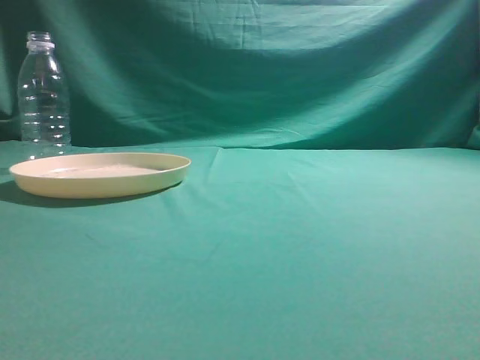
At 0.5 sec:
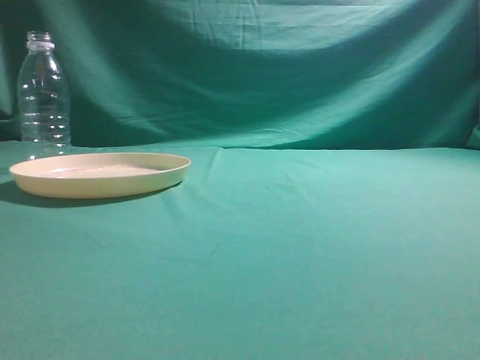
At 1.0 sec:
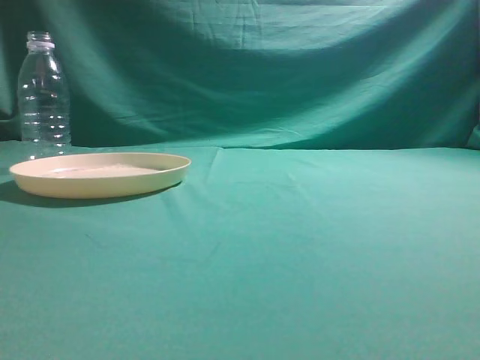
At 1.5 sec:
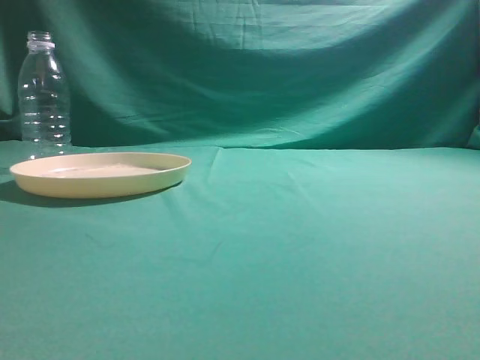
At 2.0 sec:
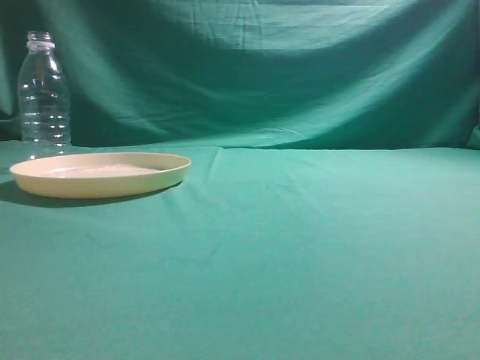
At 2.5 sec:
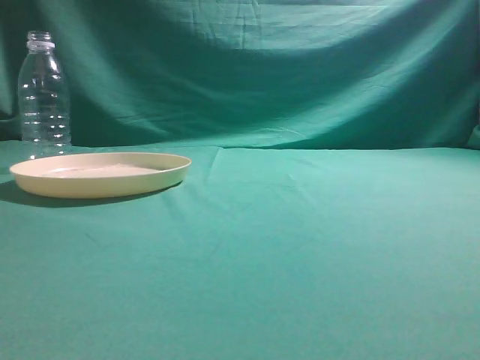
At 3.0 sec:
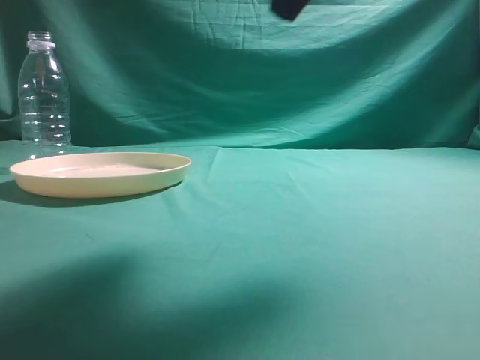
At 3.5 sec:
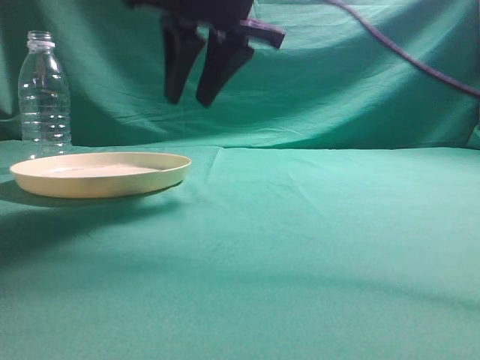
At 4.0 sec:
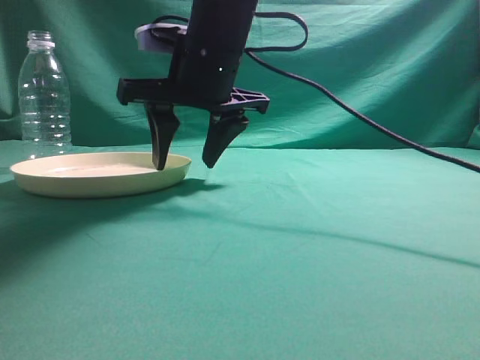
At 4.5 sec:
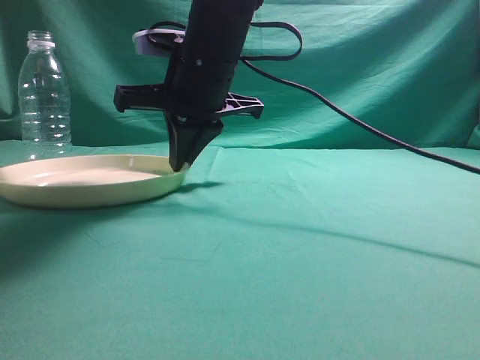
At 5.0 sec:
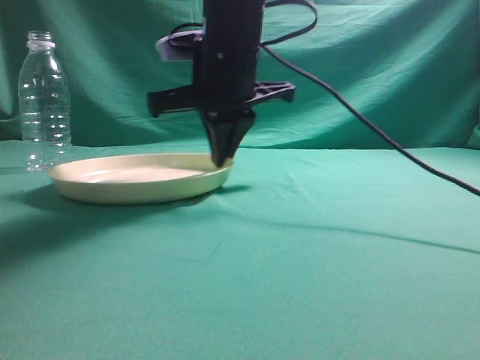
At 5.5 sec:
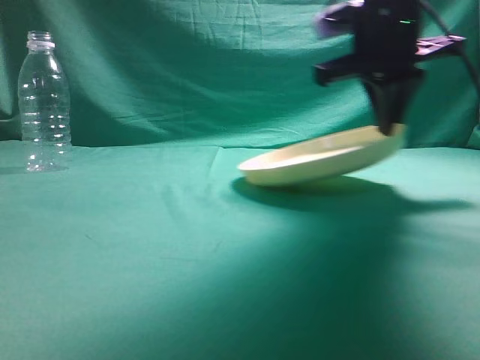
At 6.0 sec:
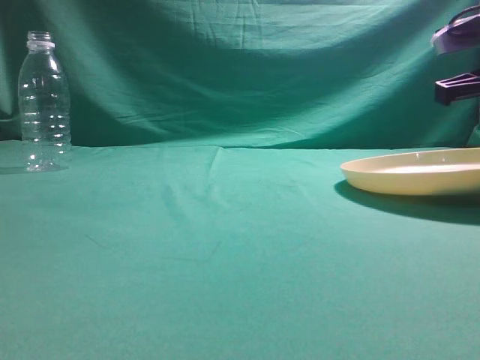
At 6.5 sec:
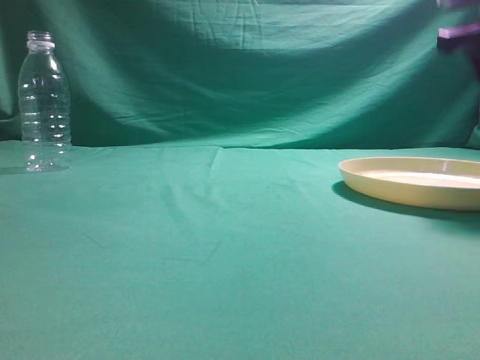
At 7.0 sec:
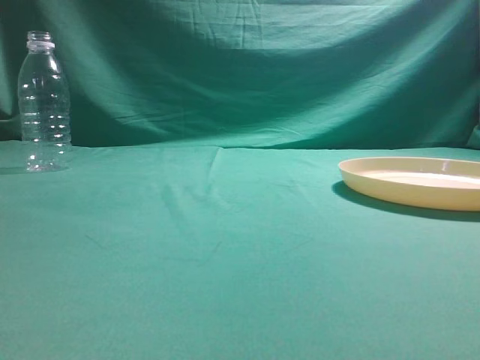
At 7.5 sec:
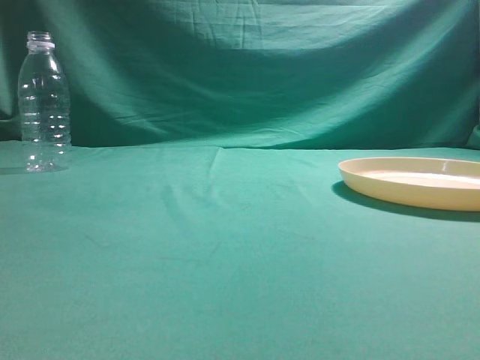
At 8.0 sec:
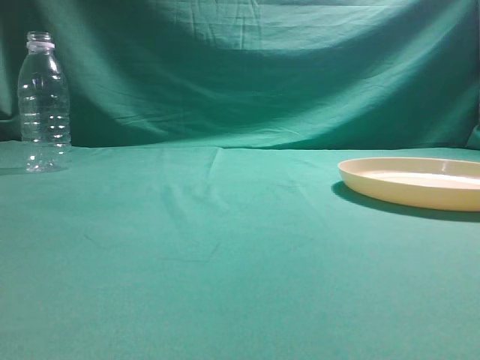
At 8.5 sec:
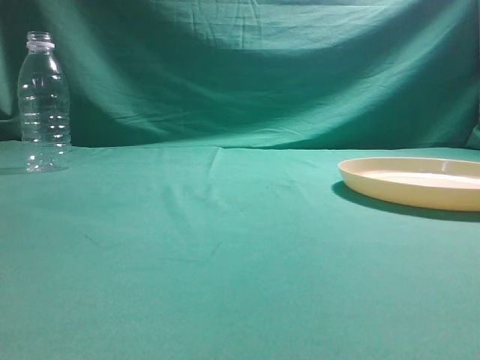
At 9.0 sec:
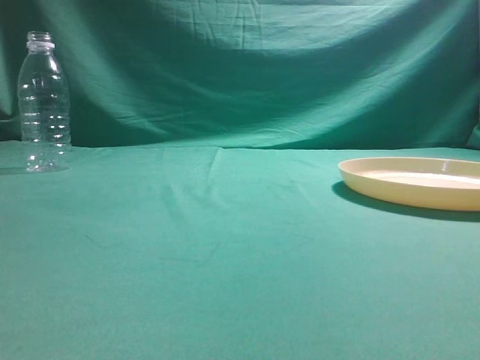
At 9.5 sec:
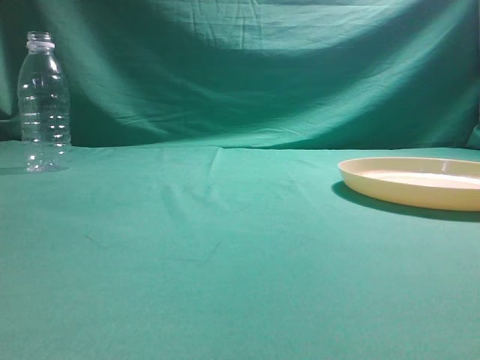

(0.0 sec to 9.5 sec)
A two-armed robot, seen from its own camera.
Step, 0.0 sec - 5.0 sec: Pick the container that can hold fruits.
Step, 5.5 sec - 6.5 sec: Move the picked object to the right side of the table.
2.0 sec - 4.0 sec: The right gripper travels to the left and forward by approximately 40 cm, and opens.
4.0 sec - 5.5 sec: The right gripper shifts about 15 cm to the right, and closes.
5.5 sec - 7.5 sec: The right gripper heads backward, upward and to the right, covering some 35 cm, and opens, then closes once more.
